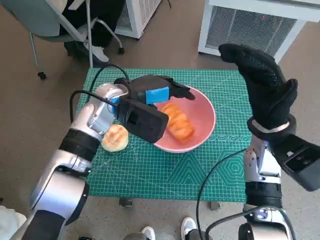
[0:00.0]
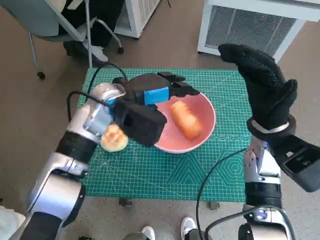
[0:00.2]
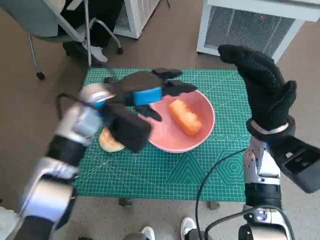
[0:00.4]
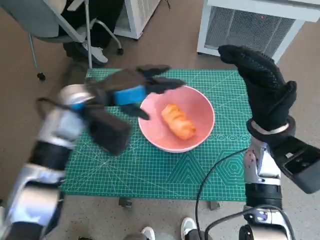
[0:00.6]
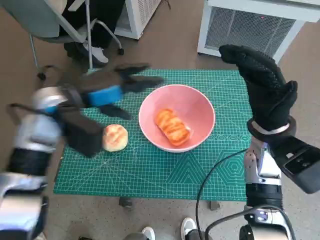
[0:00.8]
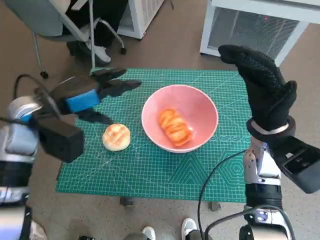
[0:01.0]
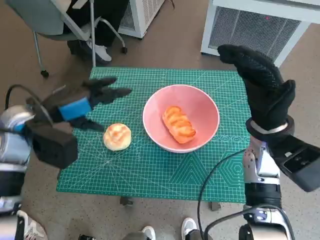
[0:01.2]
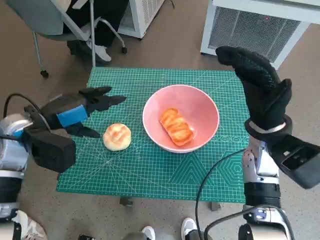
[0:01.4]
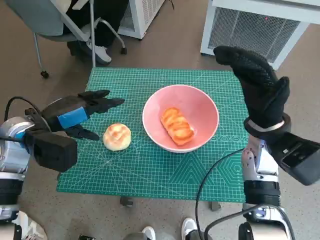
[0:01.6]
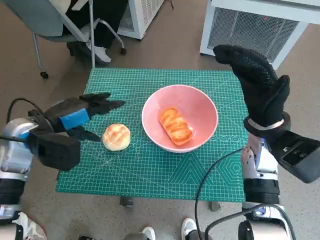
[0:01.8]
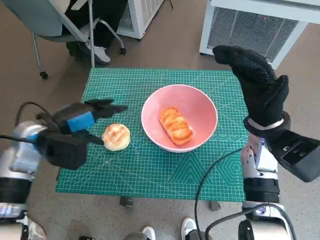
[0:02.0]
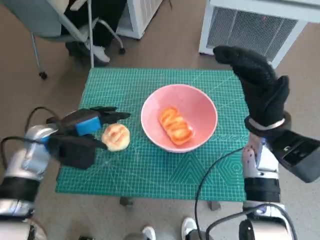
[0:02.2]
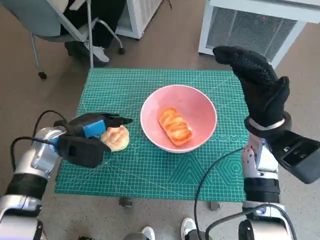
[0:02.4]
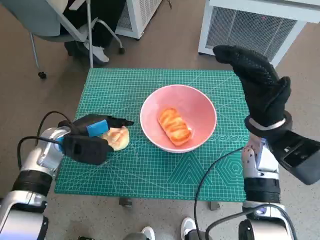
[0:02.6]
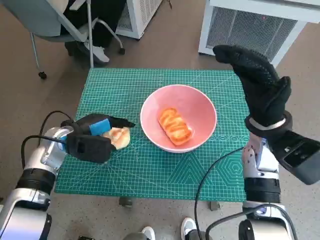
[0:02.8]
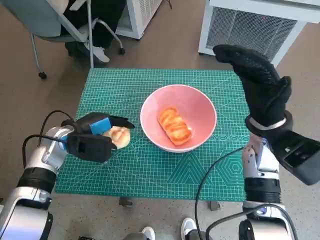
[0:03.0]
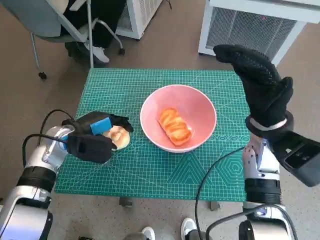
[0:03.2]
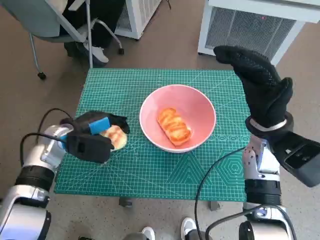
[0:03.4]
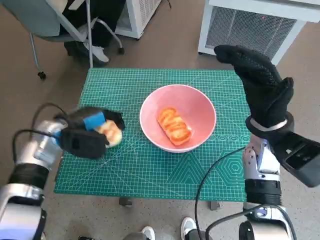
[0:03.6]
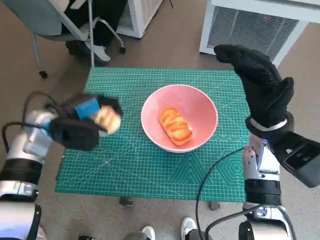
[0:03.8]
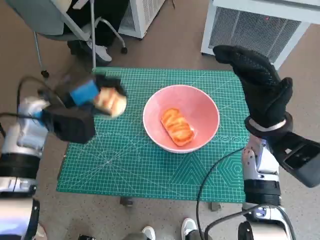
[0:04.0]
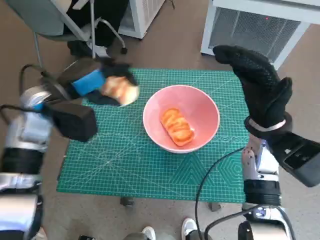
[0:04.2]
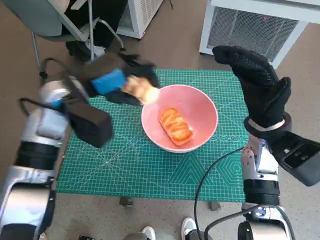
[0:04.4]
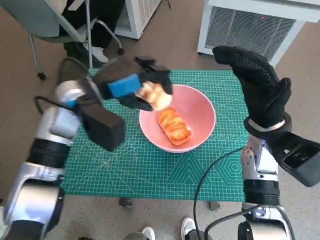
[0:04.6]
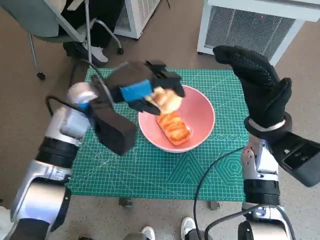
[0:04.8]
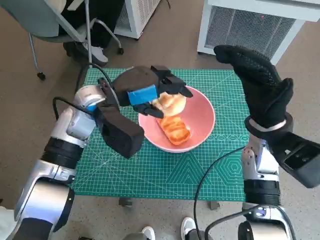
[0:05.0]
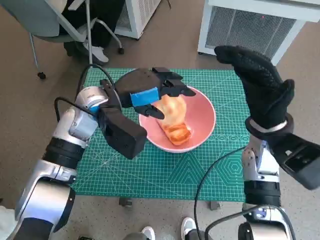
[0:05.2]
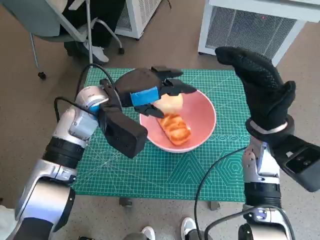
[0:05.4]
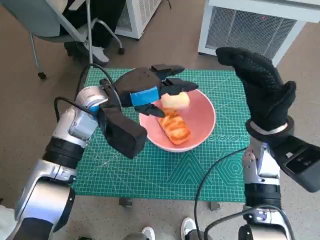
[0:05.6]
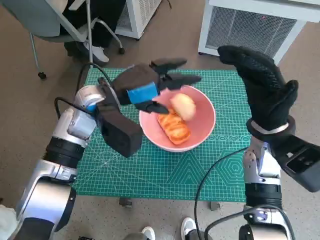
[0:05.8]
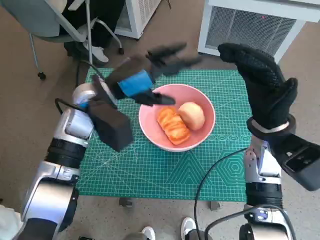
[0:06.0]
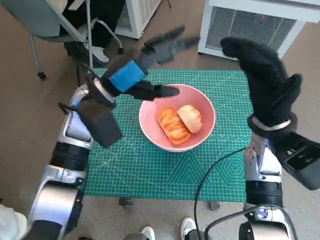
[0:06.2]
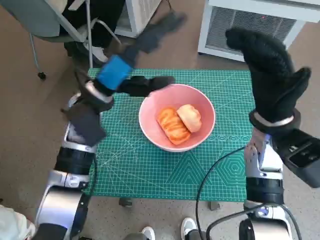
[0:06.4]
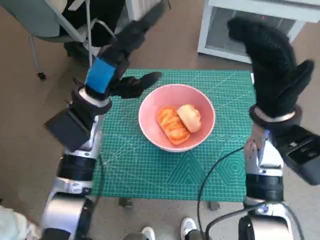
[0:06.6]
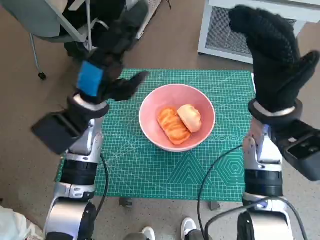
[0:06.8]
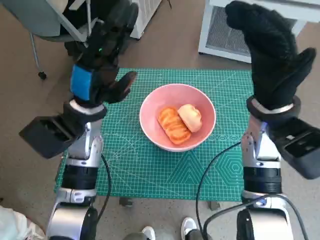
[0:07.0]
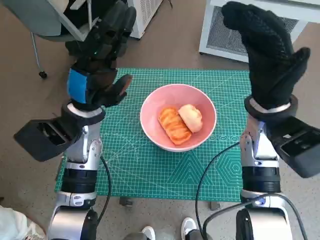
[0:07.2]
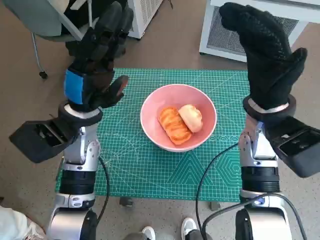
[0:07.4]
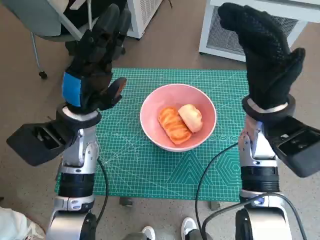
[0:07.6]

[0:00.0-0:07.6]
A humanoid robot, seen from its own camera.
Task of the whole recording: Push the bowl to the center of the table and put the bread into the bowl.
Step, 0:00.6 to 0:03.2: Grasp the round bread with left hand.
Step, 0:03.4 to 0:05.4: Place the round bread in pink bowl with left hand.
0:00.0 to 0:01.6: The left hand travels to the left and backward by roughly 15 cm.
0:01.6 to 0:03.0: The left hand heads downward, covering approximately 10 cm.
0:03.0 to 0:04.6: The left hand shifts about 15 cm upward and to the right.
0:06.0 to 0:07.6: The left hand shifts by approximately 5 cm.
